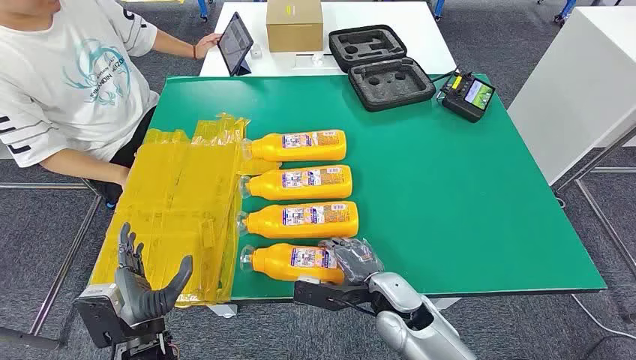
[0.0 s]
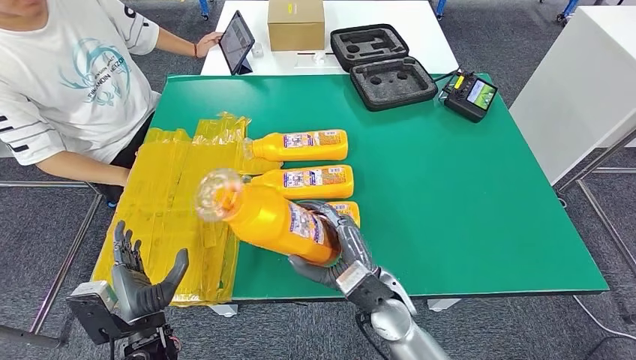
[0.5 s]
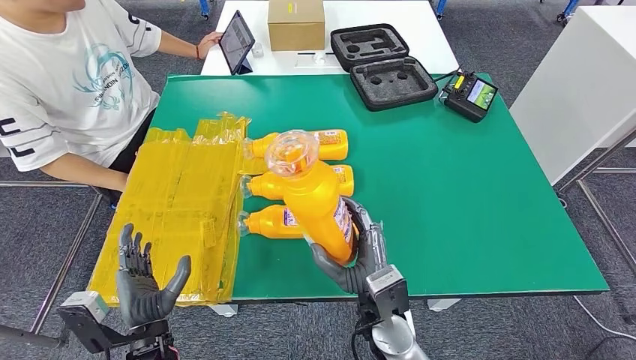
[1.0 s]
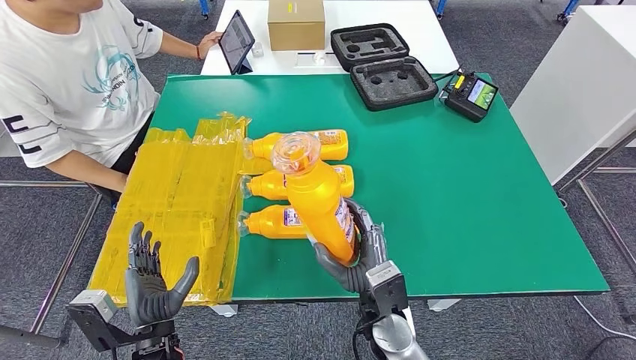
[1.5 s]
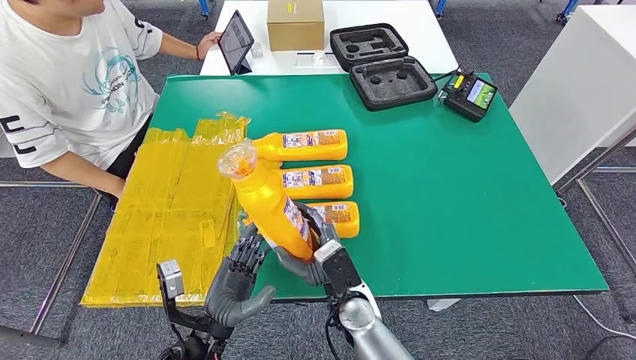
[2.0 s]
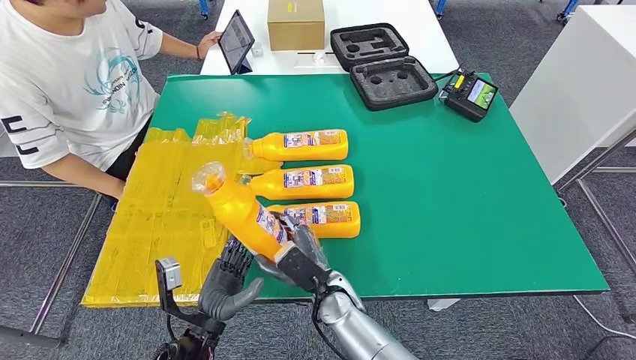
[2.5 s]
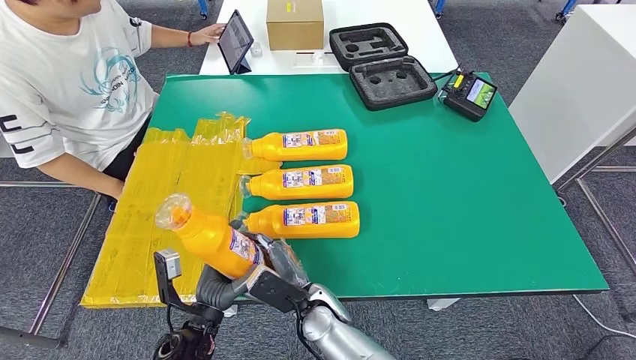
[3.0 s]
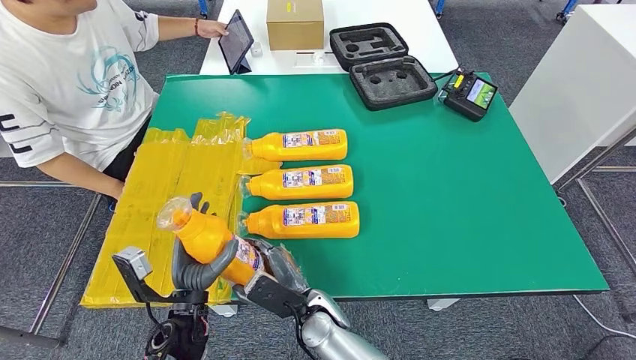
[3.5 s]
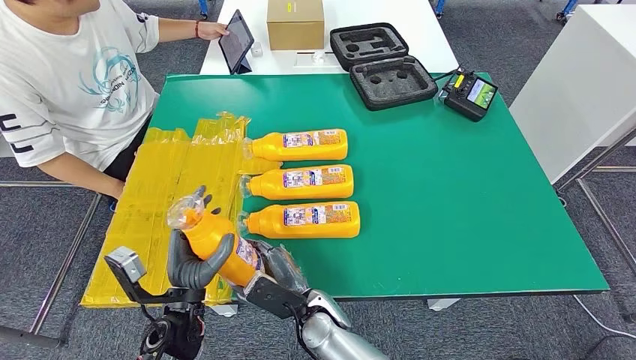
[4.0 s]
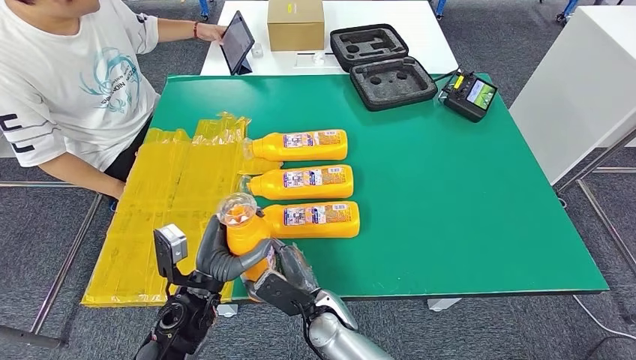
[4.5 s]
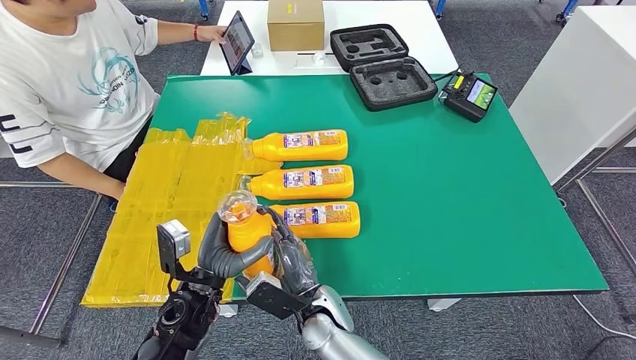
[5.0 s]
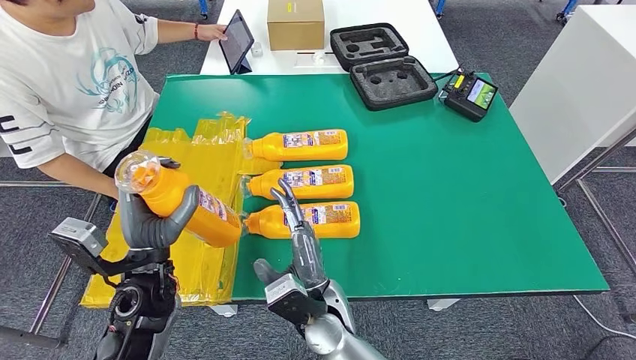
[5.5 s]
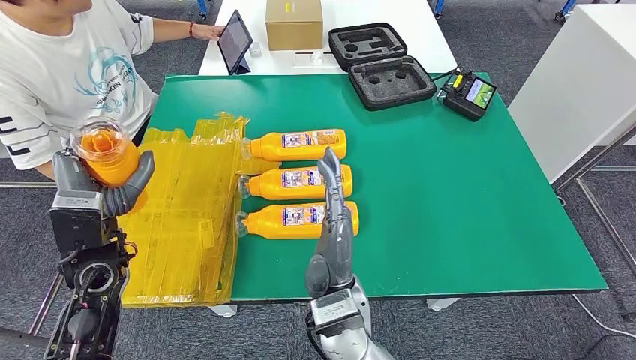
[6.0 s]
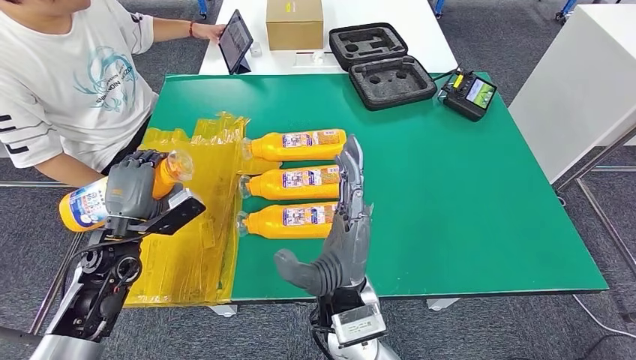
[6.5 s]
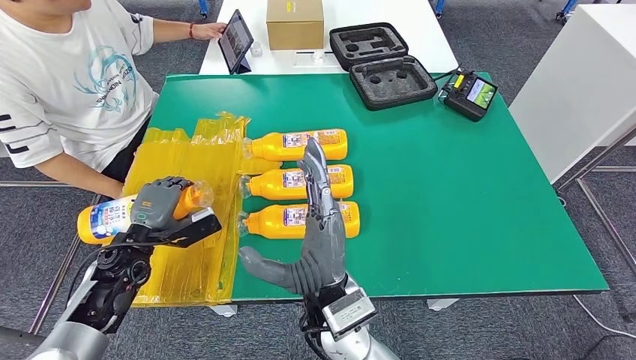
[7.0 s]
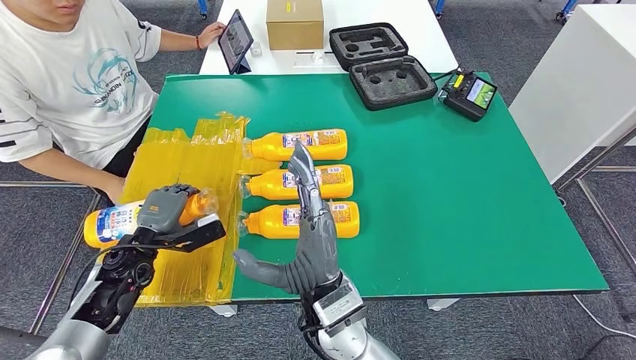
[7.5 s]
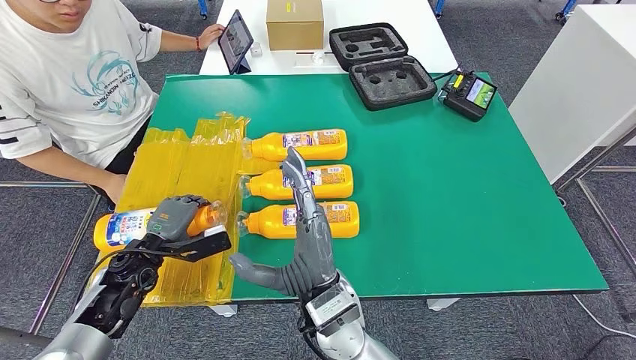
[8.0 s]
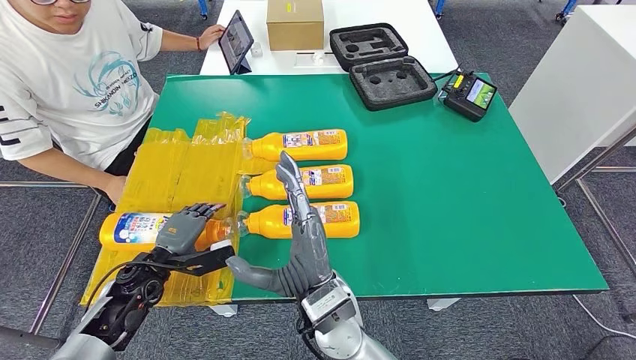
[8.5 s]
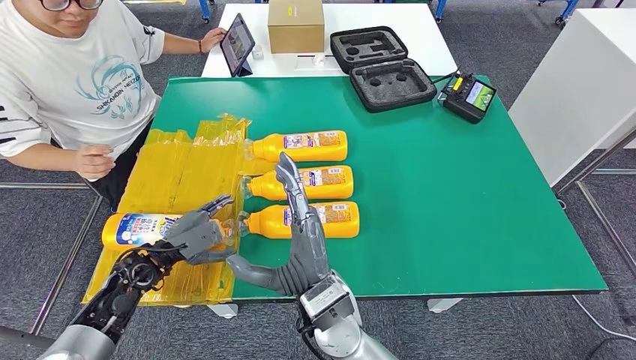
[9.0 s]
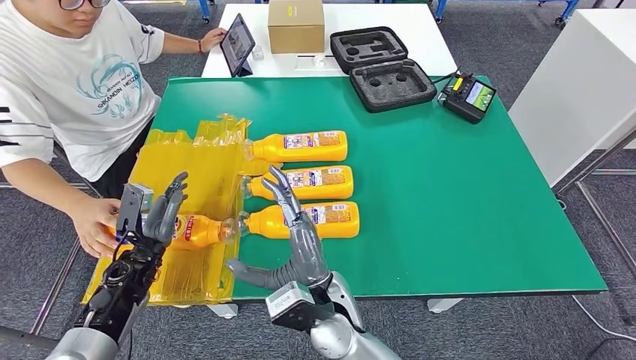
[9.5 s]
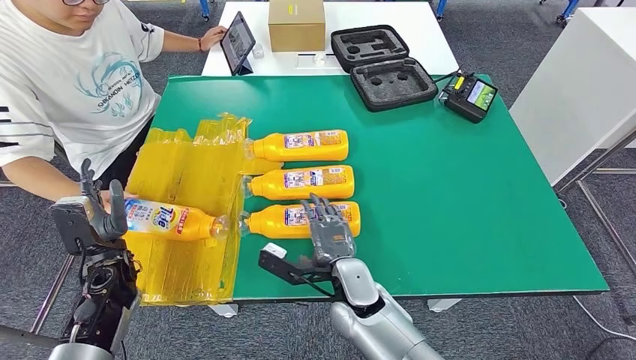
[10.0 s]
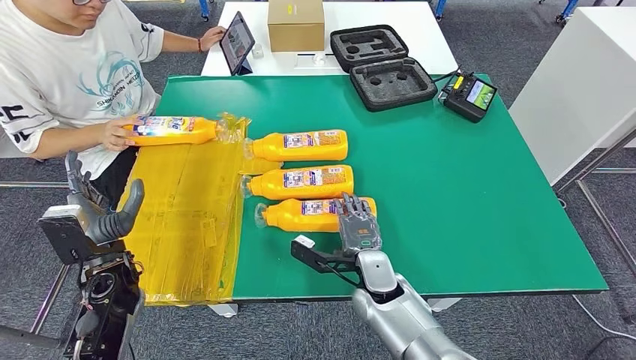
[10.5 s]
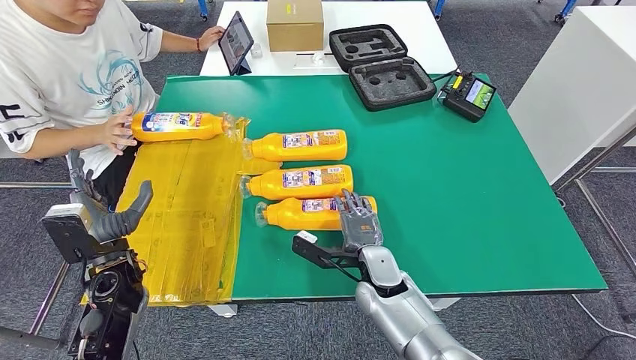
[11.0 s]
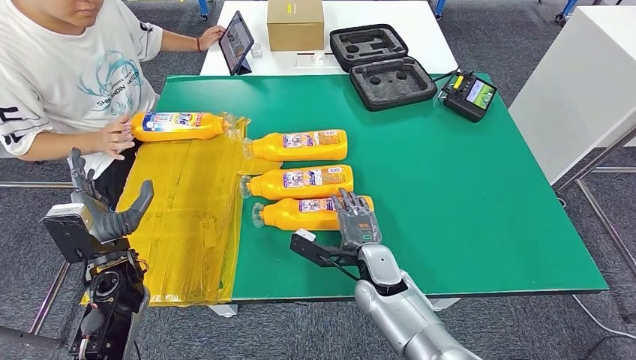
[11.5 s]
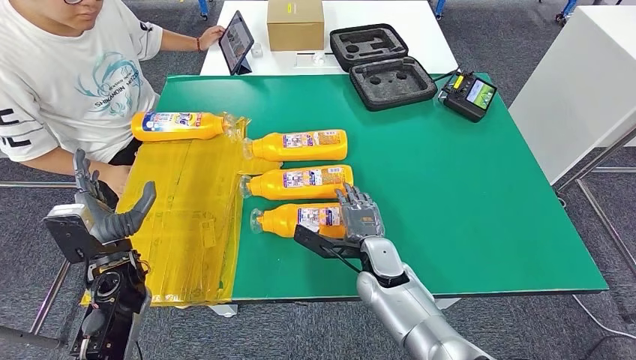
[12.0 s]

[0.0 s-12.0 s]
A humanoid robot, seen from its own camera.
Step, 0.0 to 3.0 s: Take the fast-moving consumer goods bottle from the table.
Step, 3.5 to 8.5 s: Flip the fast-moving consumer goods bottle to the front side.
2.0 to 4.0 s: The right hand heads to the left, covering roughly 10 cm.
6.0 to 8.0 s: The left hand goes approximately 10 cm downward.
10.0 to 12.0 s: The right hand goes approximately 5 cm to the right.

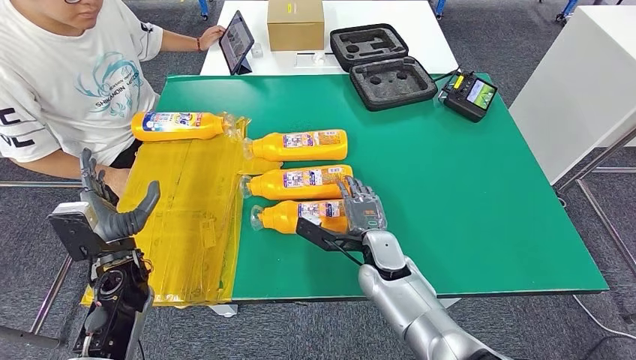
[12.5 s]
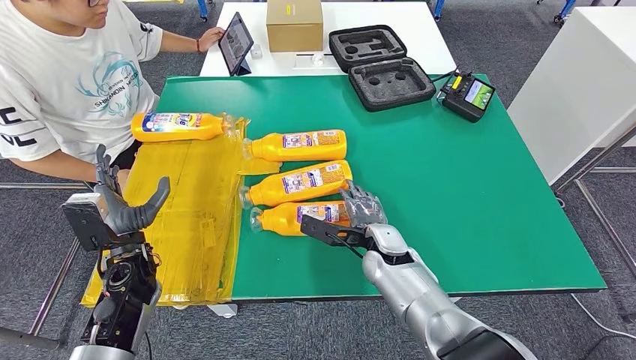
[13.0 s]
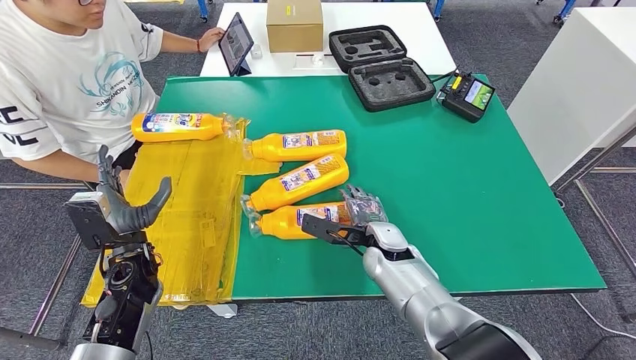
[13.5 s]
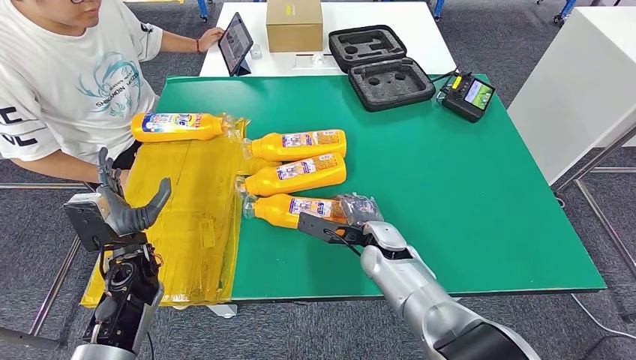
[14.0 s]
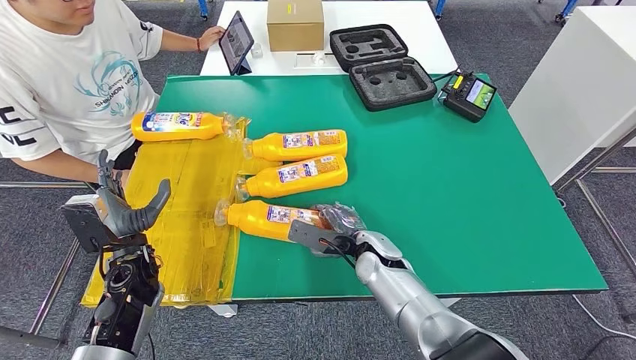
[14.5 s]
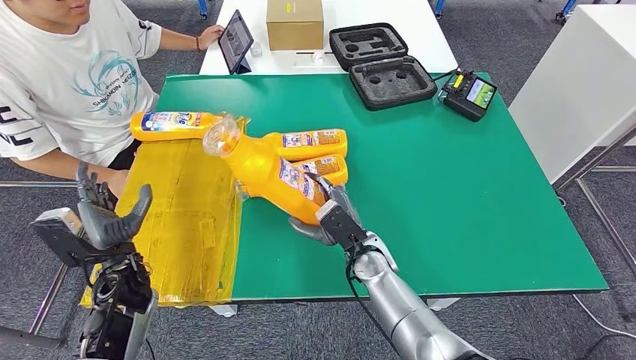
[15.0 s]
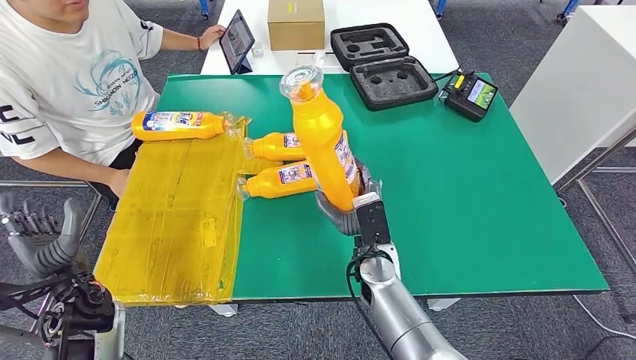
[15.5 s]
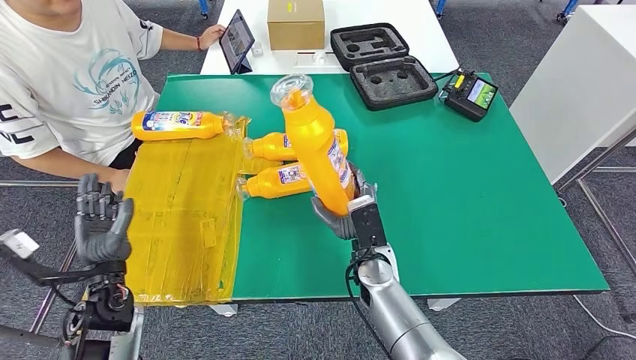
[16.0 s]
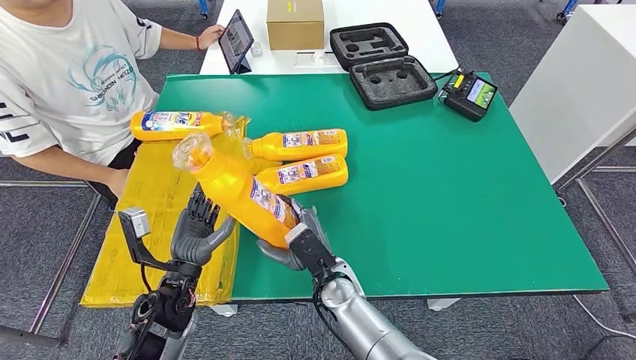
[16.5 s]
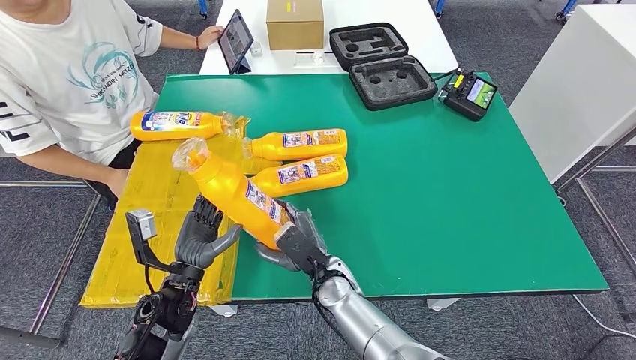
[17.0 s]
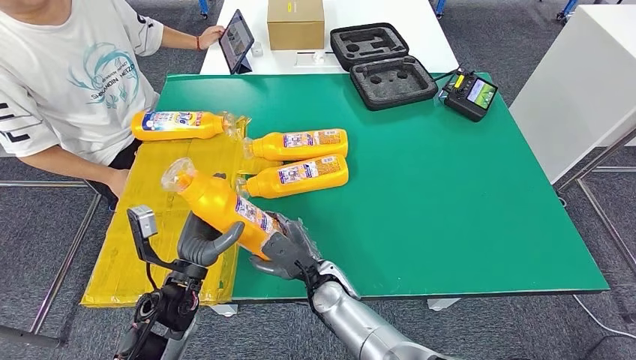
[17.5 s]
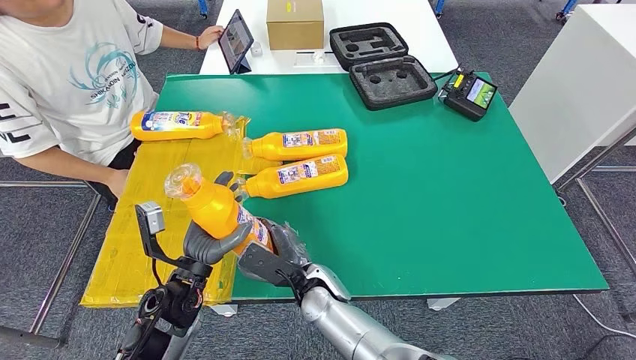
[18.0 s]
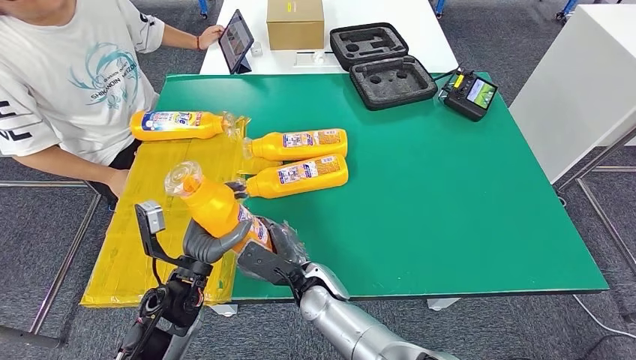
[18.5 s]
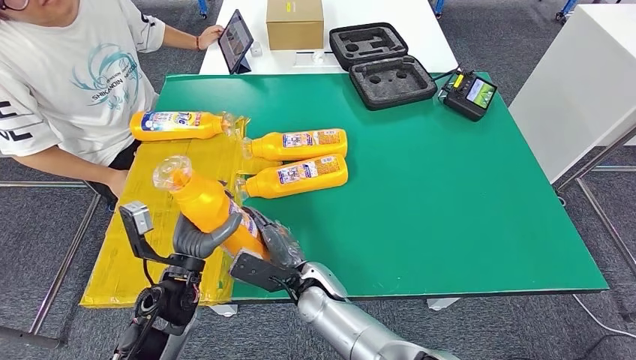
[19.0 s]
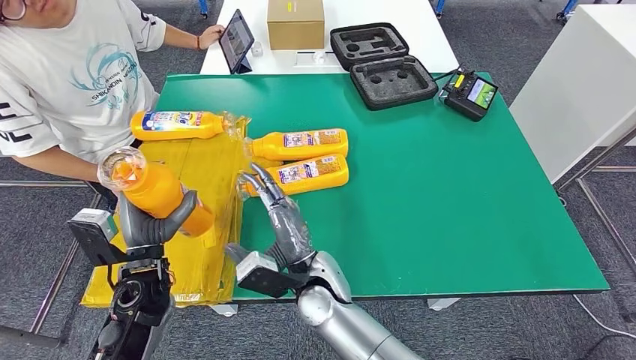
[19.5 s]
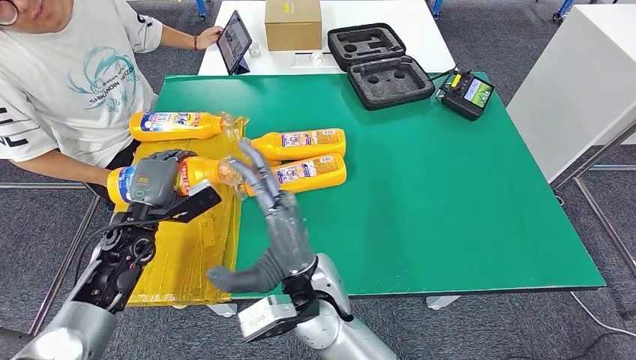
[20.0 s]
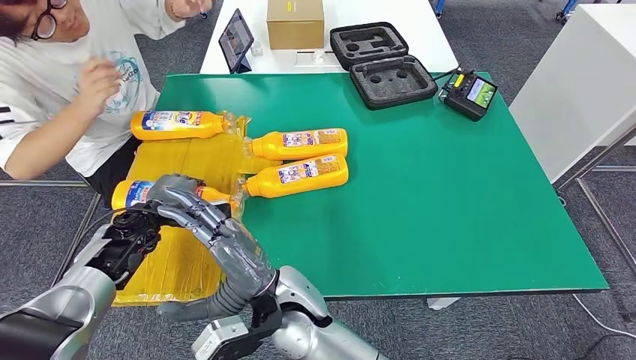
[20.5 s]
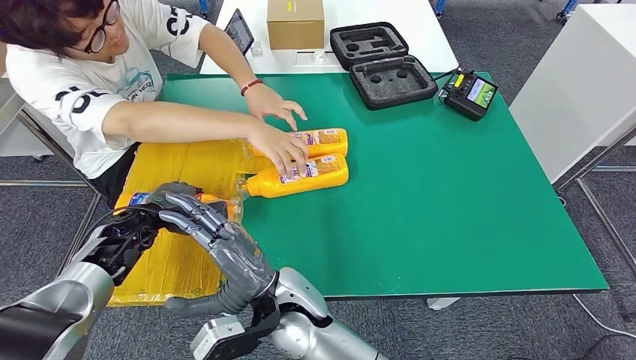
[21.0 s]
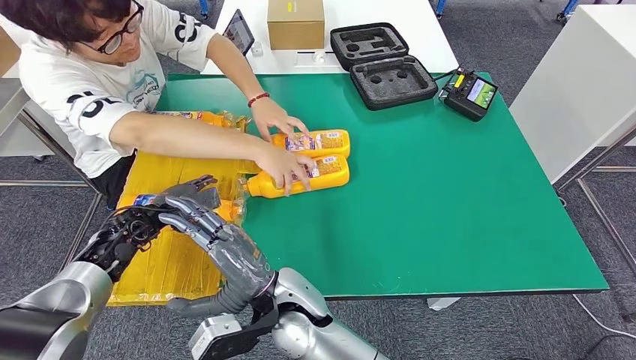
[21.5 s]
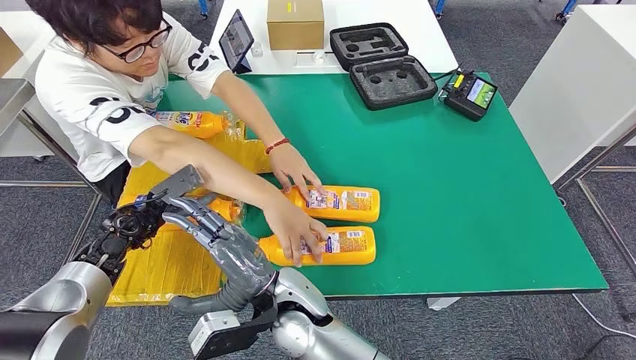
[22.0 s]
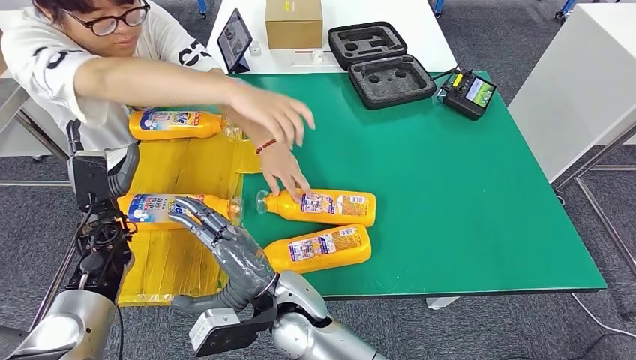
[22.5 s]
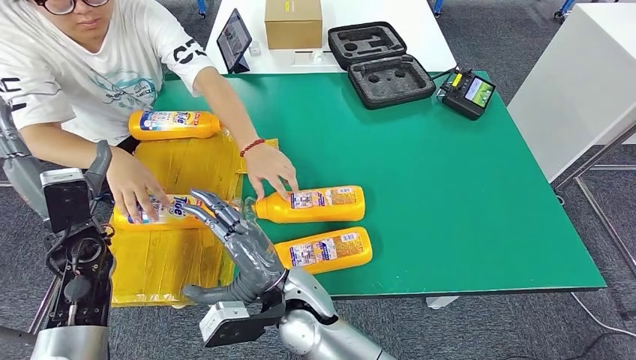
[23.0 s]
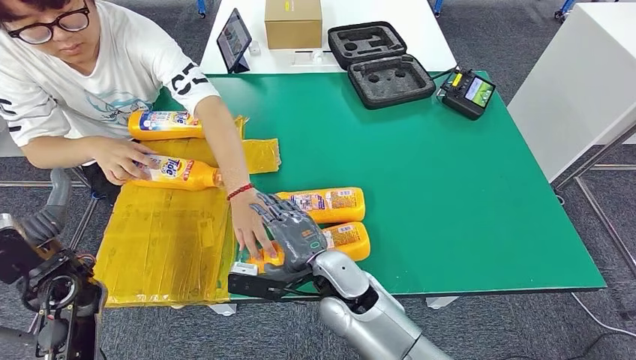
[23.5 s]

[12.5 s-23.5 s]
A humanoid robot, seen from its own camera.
Step, 12.5 to 14.5 s: Pick up the fast-moving consumer goods bottle from the table.
Step, 15.5 to 22.5 s: Flip the fast-moving consumer goods bottle to the front side.
14.5 to 16.0 s: The left hand travels backward by about 5 cm.
